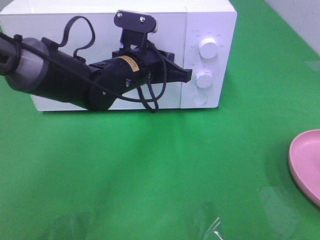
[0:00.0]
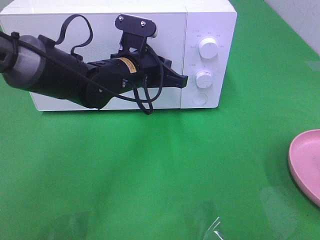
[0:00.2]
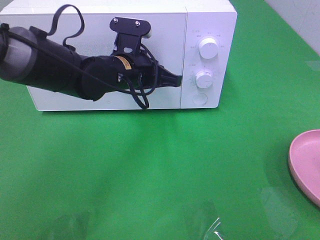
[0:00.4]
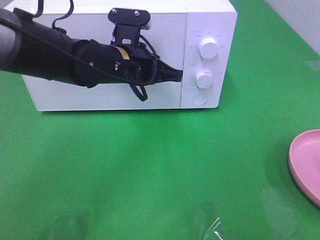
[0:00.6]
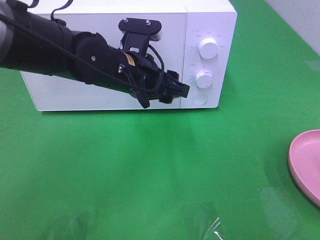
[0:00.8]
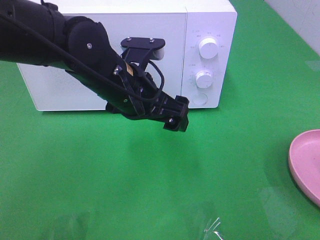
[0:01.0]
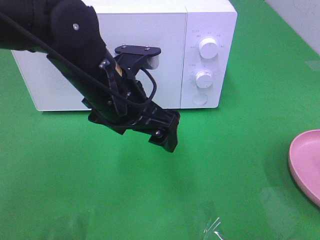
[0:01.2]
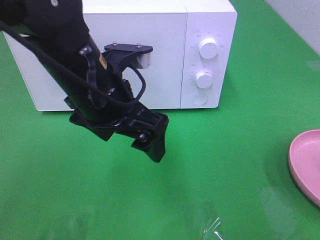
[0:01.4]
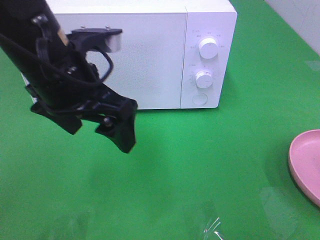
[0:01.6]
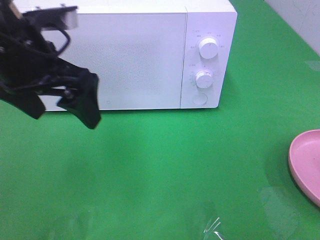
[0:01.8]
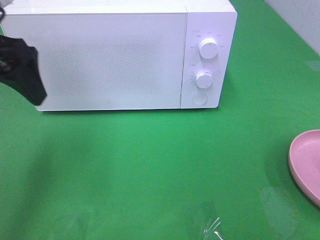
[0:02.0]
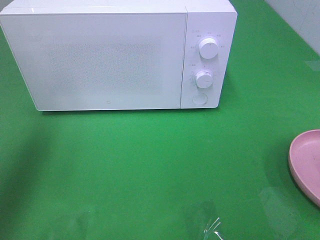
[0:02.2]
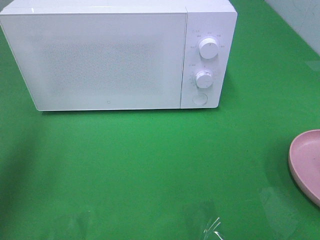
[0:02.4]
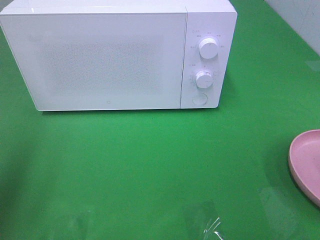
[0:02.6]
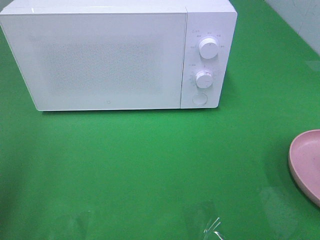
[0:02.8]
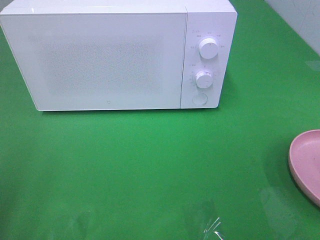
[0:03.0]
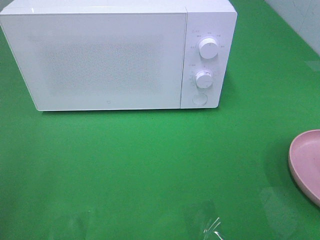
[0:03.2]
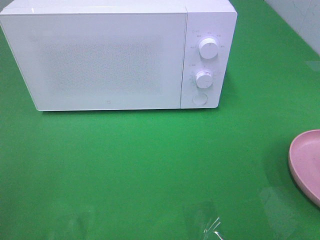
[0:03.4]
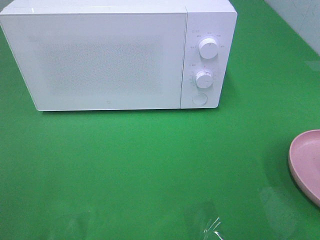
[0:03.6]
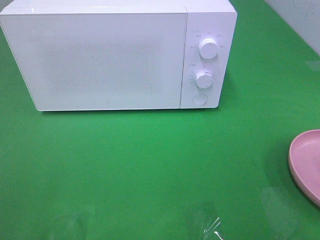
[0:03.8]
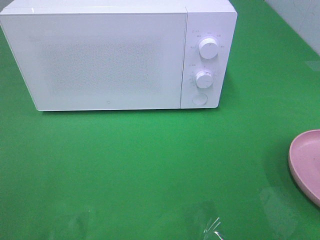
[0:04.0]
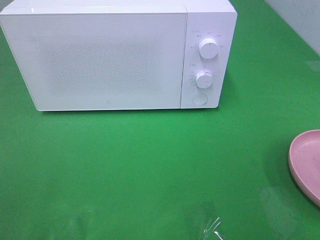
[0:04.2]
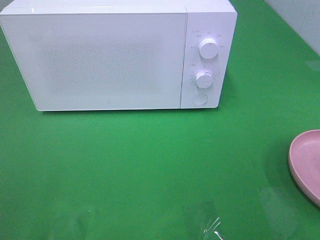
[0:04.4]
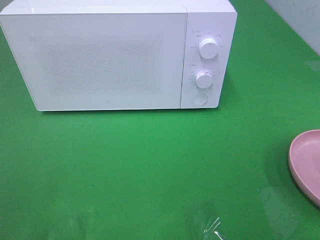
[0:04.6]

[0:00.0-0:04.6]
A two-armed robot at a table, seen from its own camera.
Task of the whole recording: Heat the burger.
0:00.0 to 0:01.6: The left gripper moves backward, upward and to the left, roughly 15 cm, and opens its fingers.
0:01.6 to 0:03.0: The left gripper heads to the left and backward, covering approximately 25 cm.

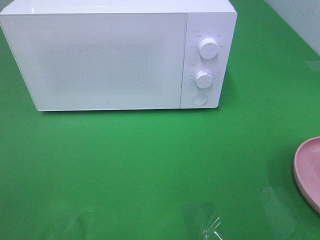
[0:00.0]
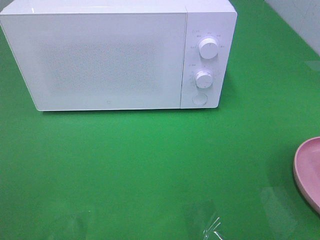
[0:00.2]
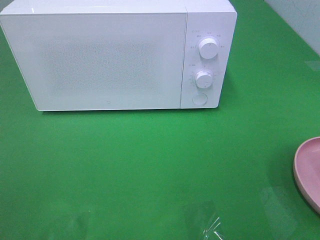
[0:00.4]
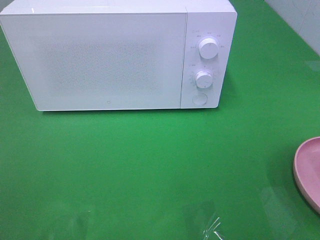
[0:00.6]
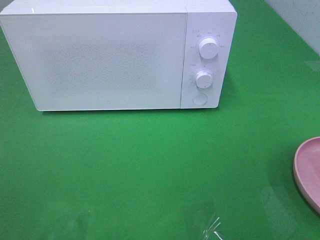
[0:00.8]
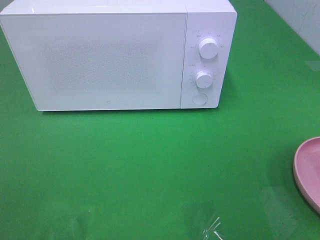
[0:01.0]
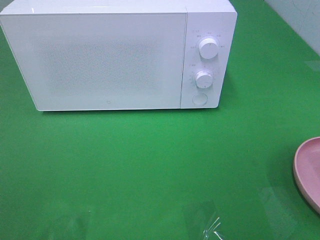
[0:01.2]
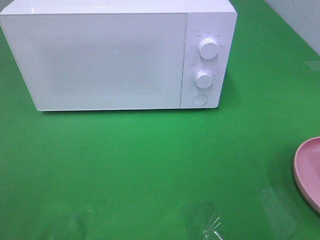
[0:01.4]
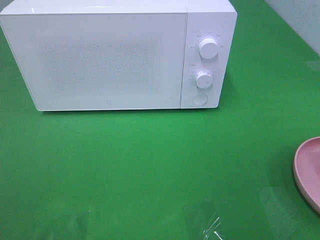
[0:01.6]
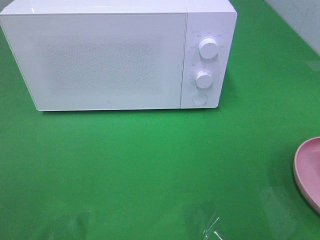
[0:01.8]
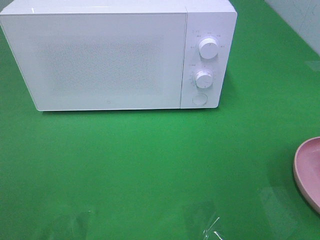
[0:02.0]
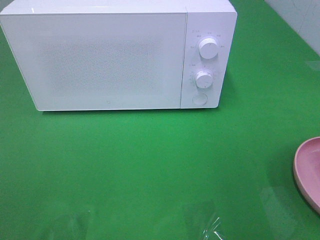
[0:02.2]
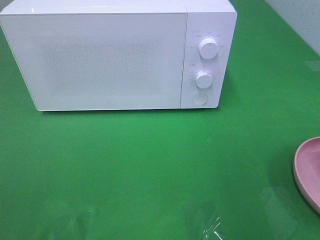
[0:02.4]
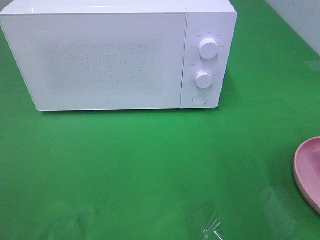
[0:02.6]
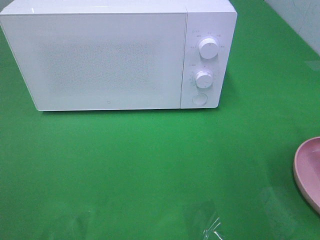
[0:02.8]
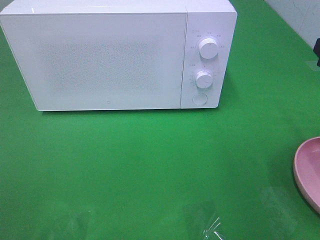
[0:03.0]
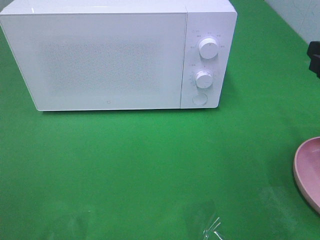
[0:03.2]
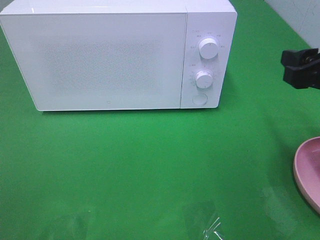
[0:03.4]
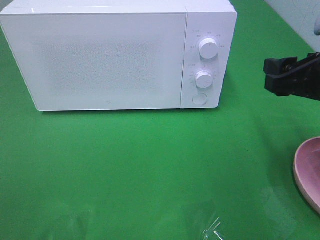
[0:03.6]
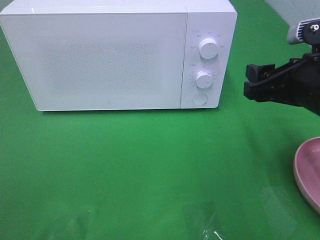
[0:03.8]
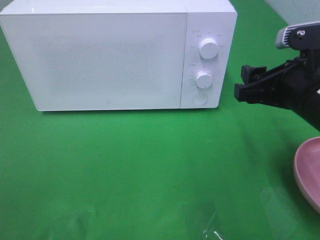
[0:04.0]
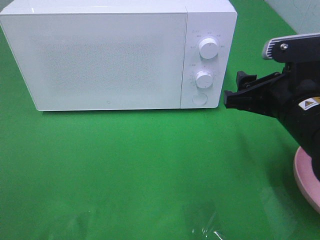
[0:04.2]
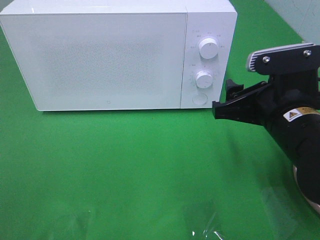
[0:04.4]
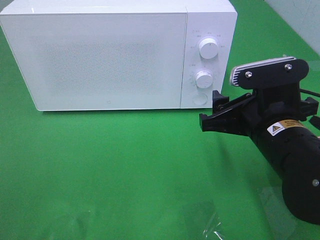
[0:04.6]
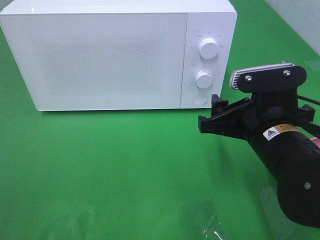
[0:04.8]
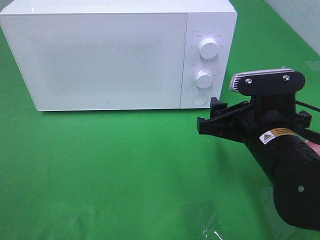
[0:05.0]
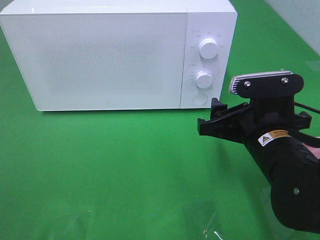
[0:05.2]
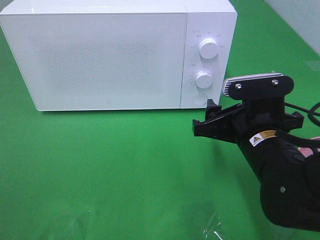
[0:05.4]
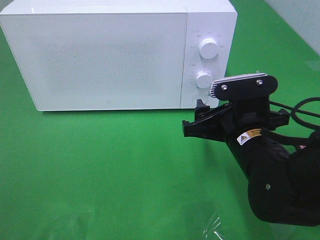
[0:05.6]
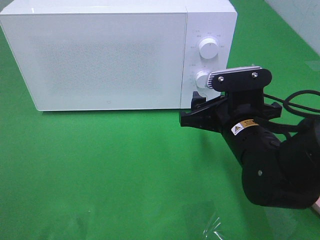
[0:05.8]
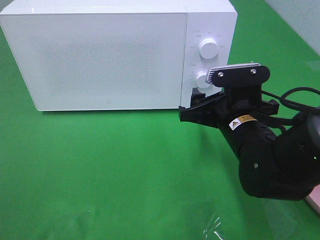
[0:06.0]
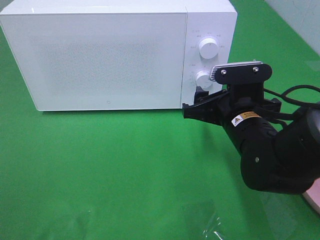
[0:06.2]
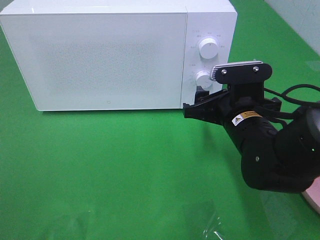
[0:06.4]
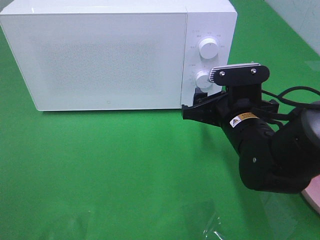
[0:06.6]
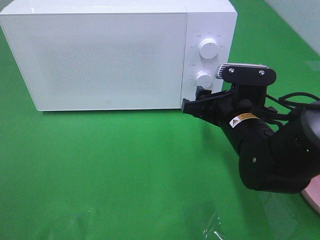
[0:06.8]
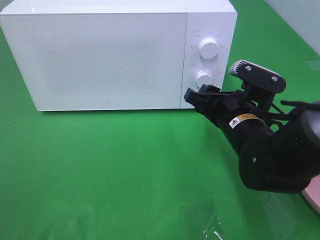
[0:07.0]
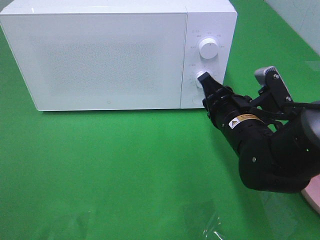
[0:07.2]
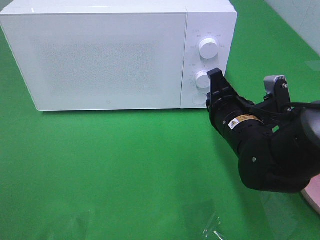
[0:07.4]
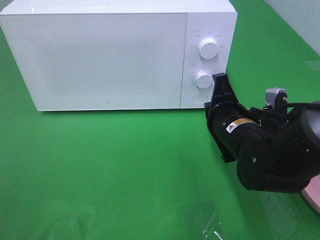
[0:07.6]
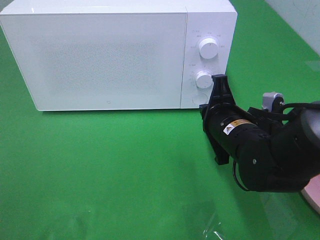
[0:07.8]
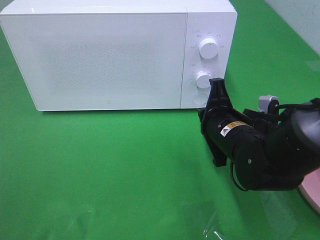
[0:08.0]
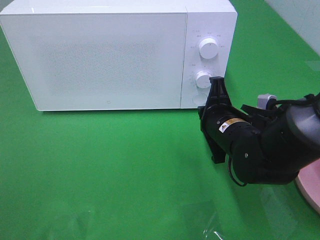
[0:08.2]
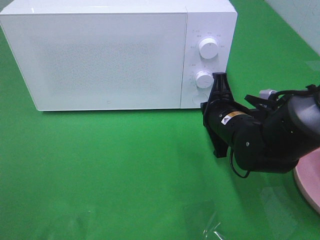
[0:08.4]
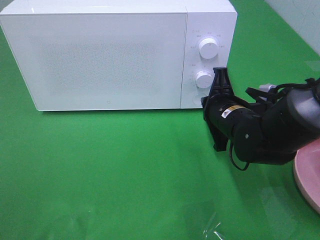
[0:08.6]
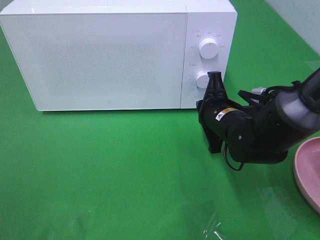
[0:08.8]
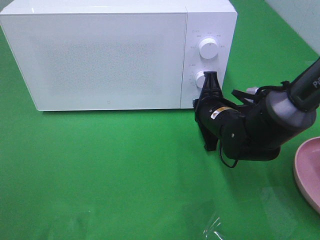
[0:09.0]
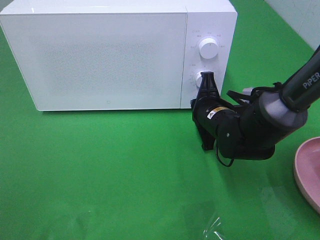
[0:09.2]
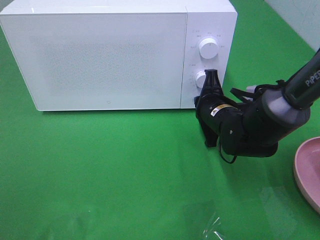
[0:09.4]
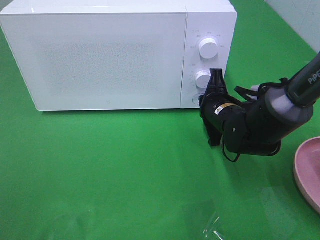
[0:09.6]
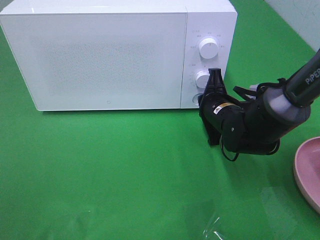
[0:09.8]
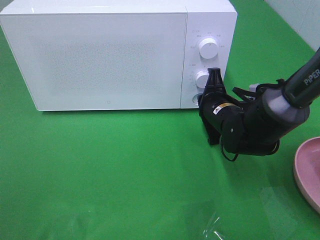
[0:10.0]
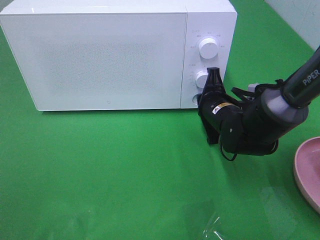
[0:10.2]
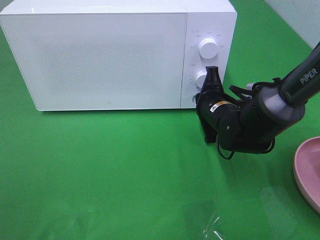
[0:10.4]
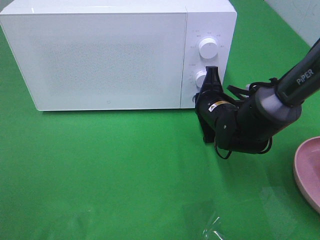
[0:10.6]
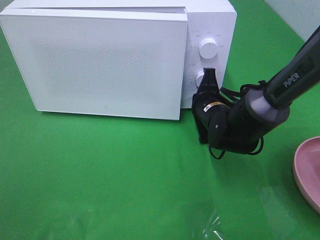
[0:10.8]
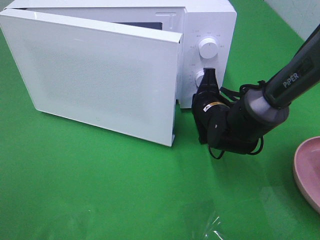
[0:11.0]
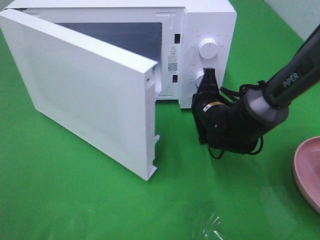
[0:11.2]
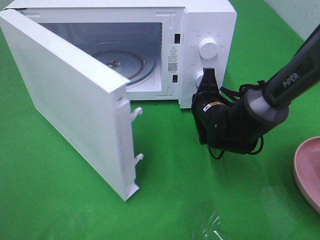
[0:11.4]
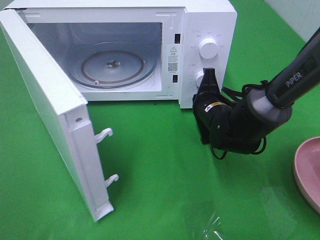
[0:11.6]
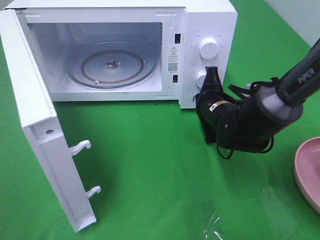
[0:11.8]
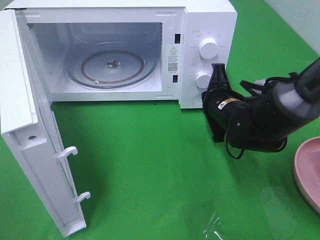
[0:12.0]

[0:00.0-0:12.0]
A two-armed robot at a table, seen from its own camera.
Task of the whole recording: Heat the burger.
0:03.0 to 0:04.4: The right gripper goes roughly 15 cm to the left and downward.
0:04.4 to 0:06.0: The right gripper changes place by about 5 cm.
0:06.0 to 0:07.6: The right gripper closes its fingers.
0:07.6 to 0:09.0: The right gripper shifts about 5 cm forward.
0:09.0 to 0:10.4: The grippers move only a little.

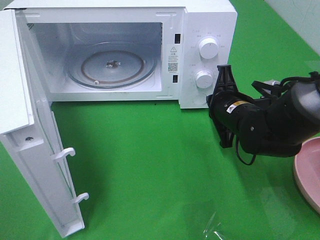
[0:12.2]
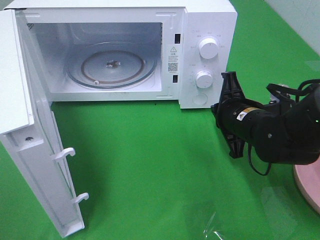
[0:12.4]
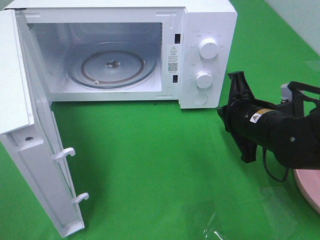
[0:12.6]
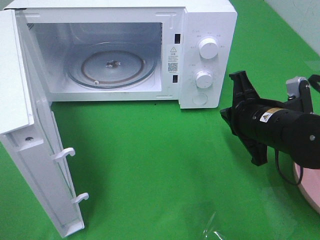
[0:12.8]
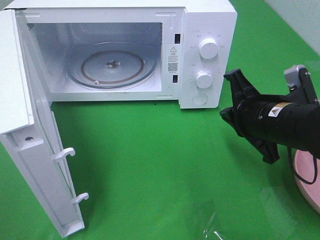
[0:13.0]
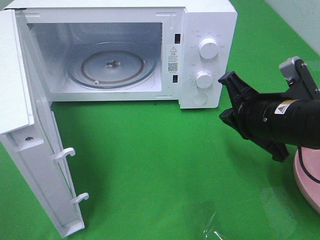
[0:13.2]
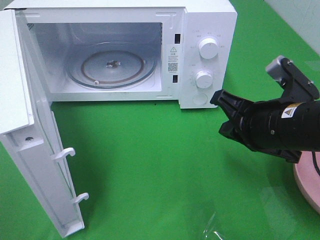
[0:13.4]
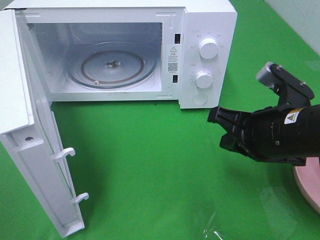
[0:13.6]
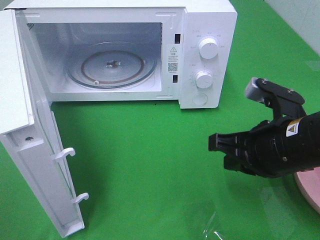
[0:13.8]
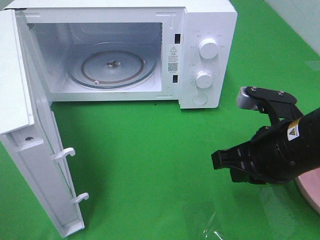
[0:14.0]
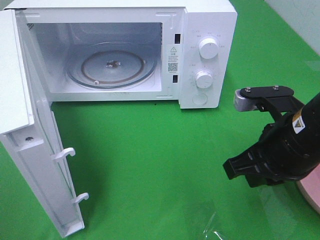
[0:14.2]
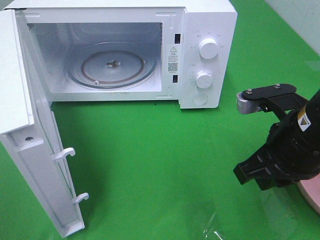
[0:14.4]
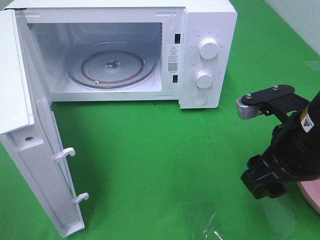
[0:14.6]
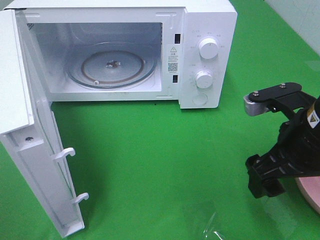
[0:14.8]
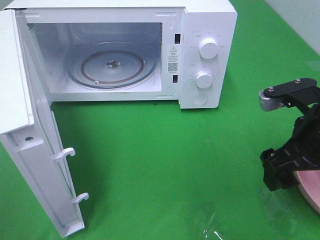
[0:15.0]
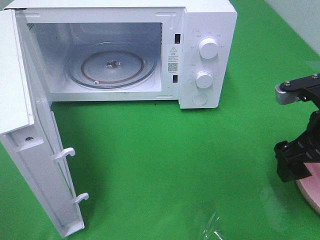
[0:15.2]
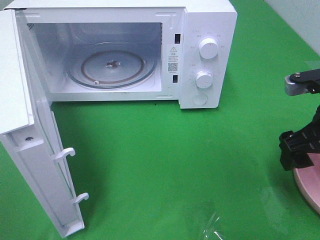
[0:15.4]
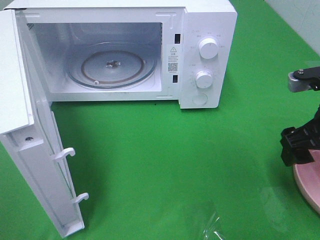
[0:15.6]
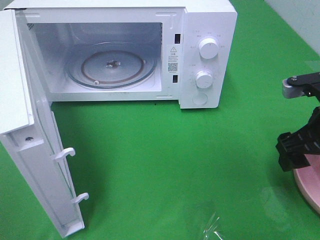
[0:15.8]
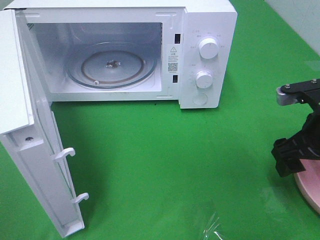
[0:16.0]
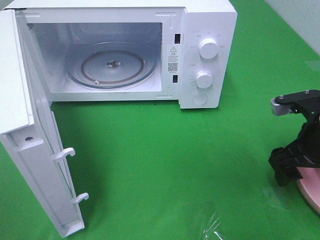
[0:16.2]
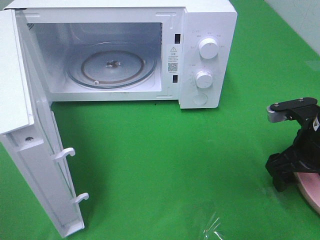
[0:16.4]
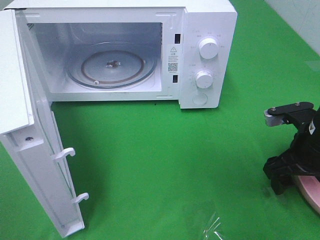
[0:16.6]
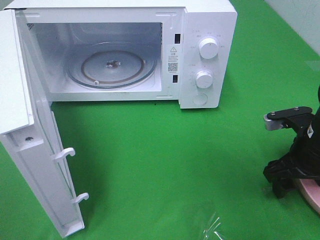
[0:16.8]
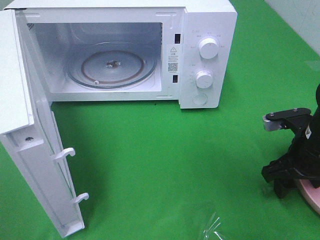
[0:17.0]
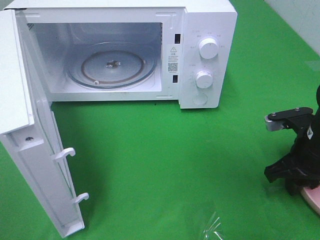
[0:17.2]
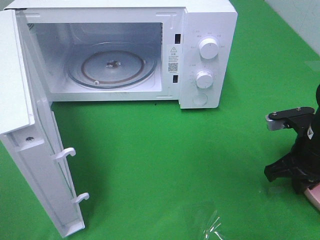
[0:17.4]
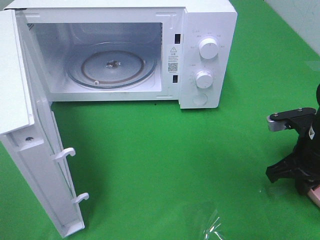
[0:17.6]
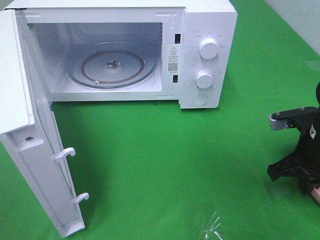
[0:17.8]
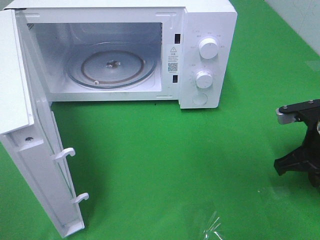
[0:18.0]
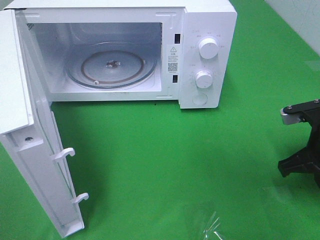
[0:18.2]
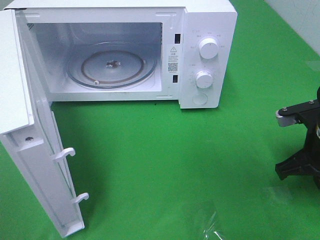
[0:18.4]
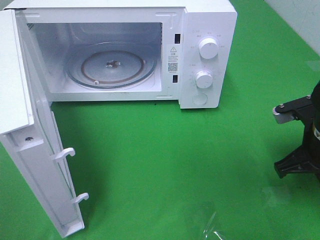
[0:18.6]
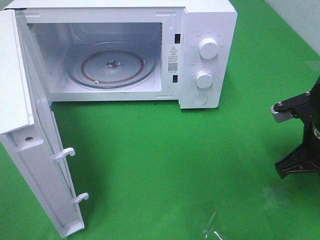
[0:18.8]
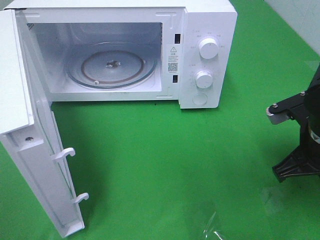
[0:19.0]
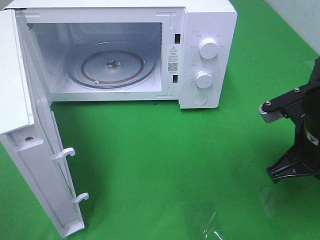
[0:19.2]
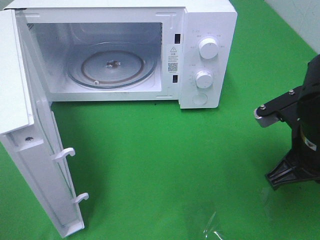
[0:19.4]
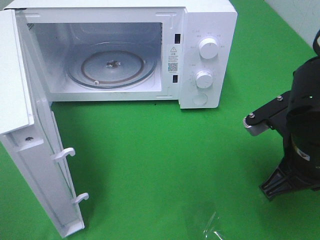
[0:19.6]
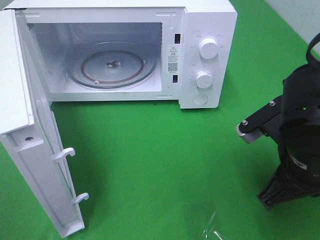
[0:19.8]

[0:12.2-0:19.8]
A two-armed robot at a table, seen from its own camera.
Task of the whole recording: Heat the burger.
Step, 0:12.8 to 0:17.4: Right hand: grab the plate with the hamburger.
0:12.2 to 0:13.8: The right gripper heads backward and upward, covering about 15 cm.
0:13.8 to 0:15.2: The right gripper travels to the right by roughly 5 cm, and opens up.
0:15.2 to 0:16.8: The right gripper heads downward, covering some 10 cm.
0:16.8 to 0:18.2: The right gripper closes up.
0:18.2 to 0:19.8: The right gripper is displaced to the left and backward by some 10 cm.
